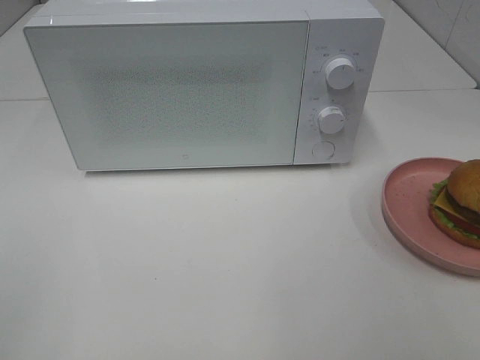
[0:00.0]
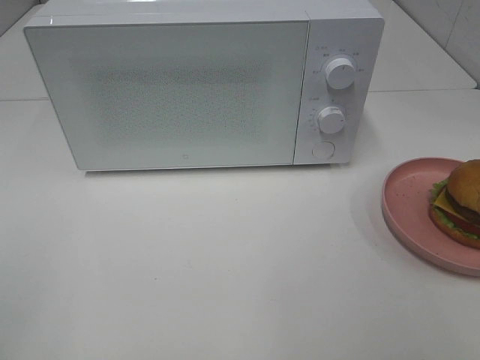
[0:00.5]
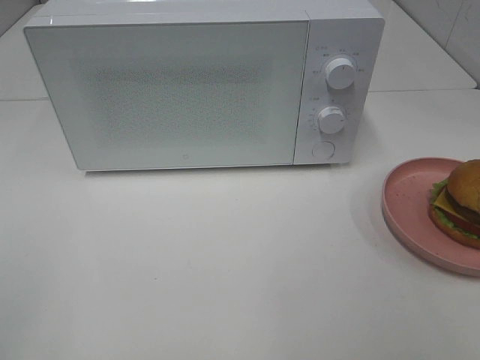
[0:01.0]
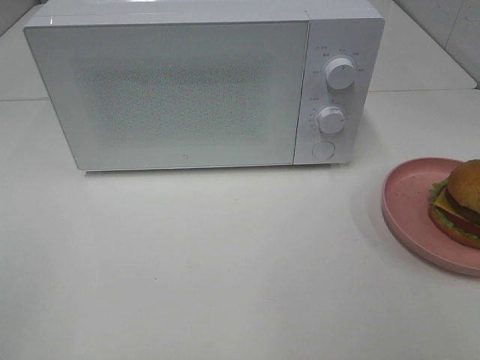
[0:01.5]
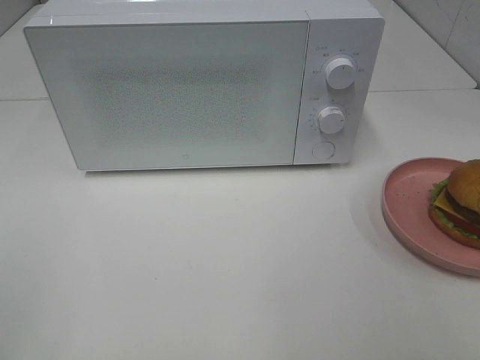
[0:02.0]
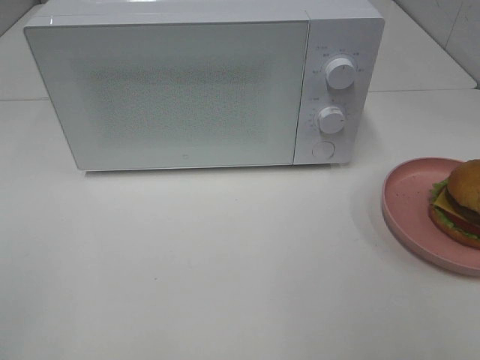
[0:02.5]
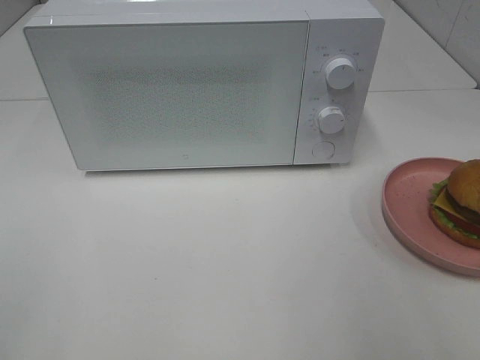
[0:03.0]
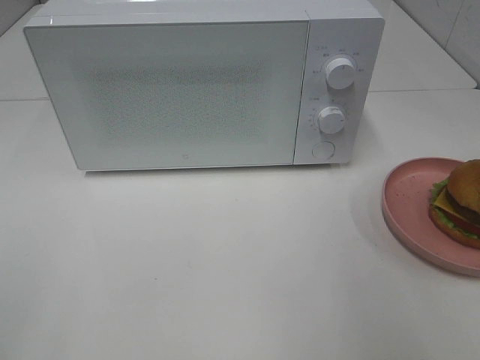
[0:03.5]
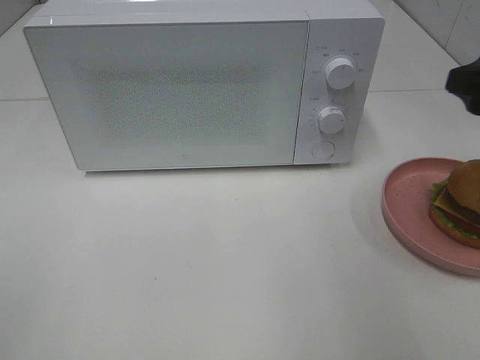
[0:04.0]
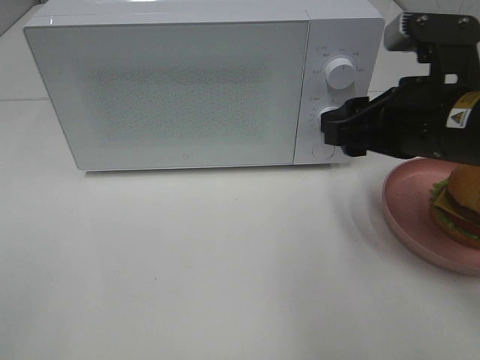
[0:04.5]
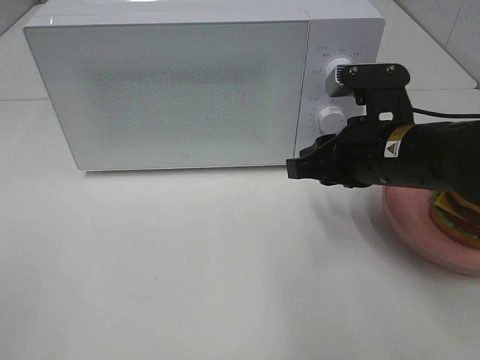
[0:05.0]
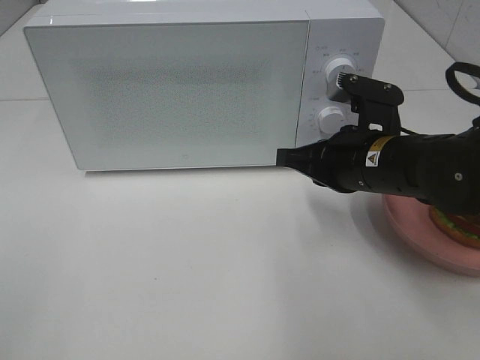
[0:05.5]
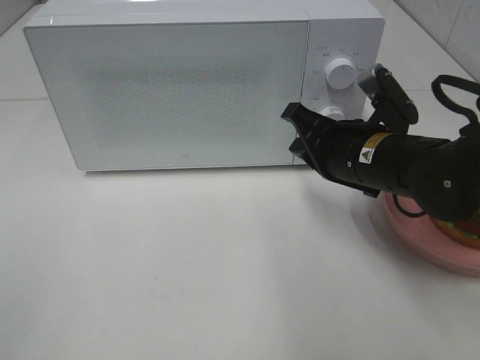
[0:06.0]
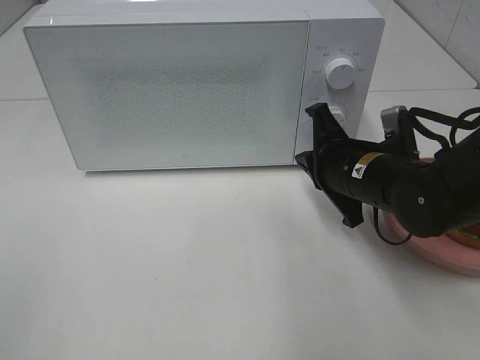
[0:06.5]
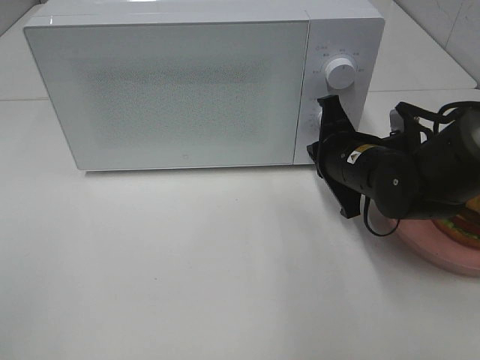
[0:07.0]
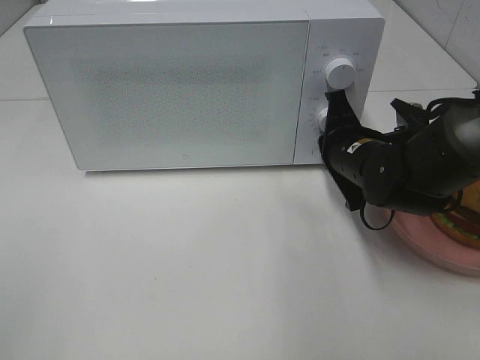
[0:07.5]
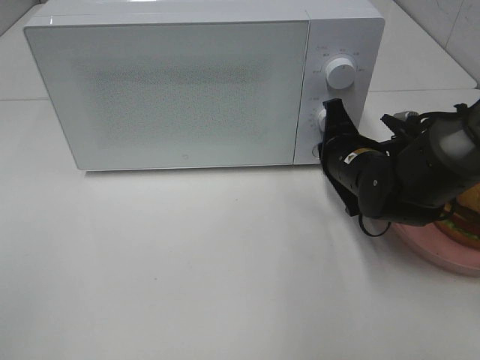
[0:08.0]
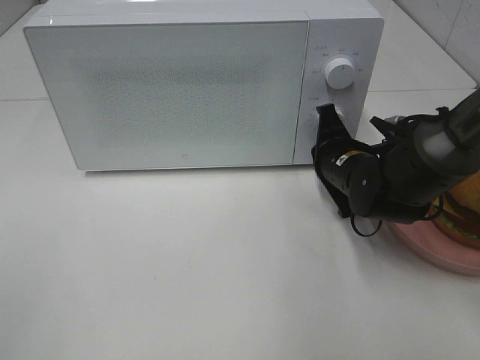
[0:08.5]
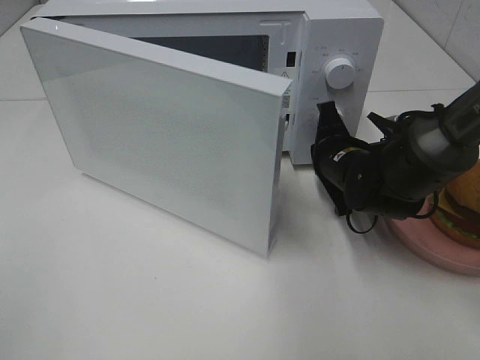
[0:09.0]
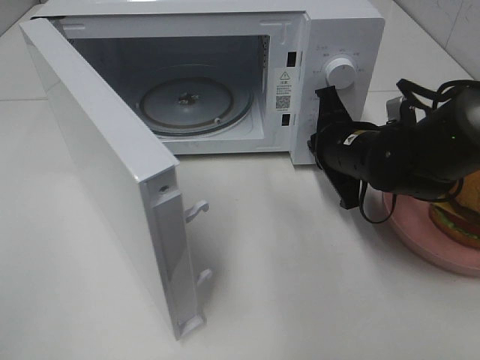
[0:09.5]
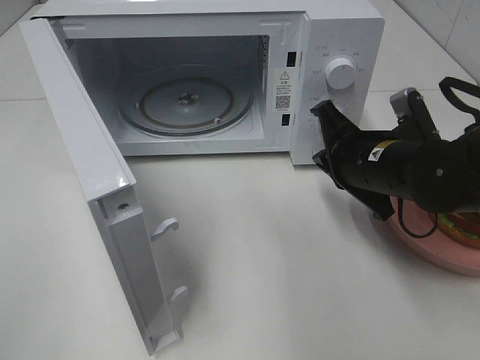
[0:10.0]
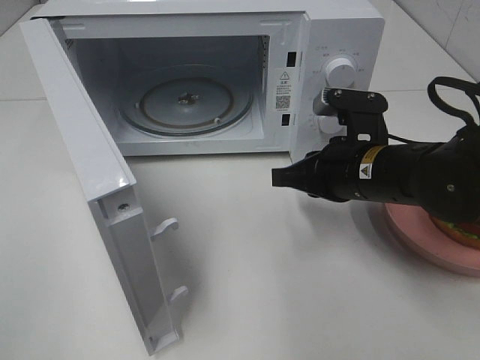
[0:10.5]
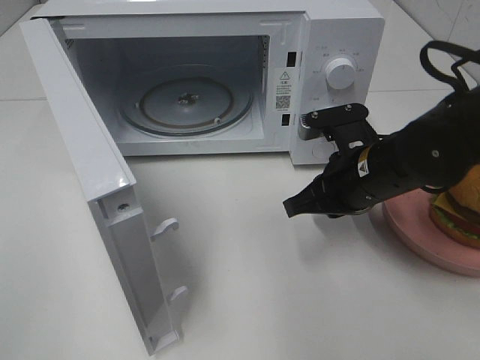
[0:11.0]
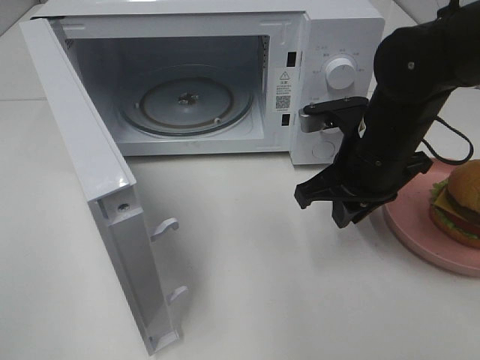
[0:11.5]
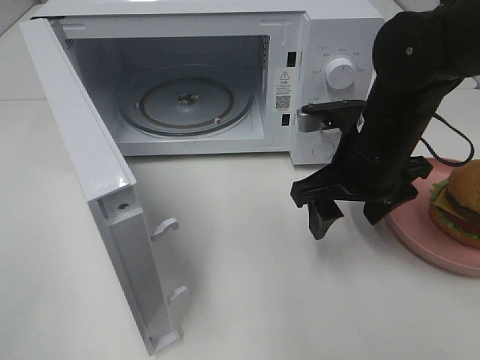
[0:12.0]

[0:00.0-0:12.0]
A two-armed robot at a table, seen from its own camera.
Task of the whole recording: Heat the burger.
Step, 0:00.0 to 0:09.5: Right hand: press the switch.
0:00.0 to 0:02.0: Both grippers stay about where they are.
0:02.0 to 0:04.0: The right gripper is displaced forward by some 25 cm.
0:04.0 to 0:06.0: The right gripper heads to the left, downward and forward, covering roughly 20 cm, and closes up.
0:06.0 to 0:08.0: The right gripper is displaced downward by some 5 cm.
0:08.0 to 0:10.0: The right gripper moves approximately 5 cm.
0:10.0 to 0:12.0: The right gripper opens up.

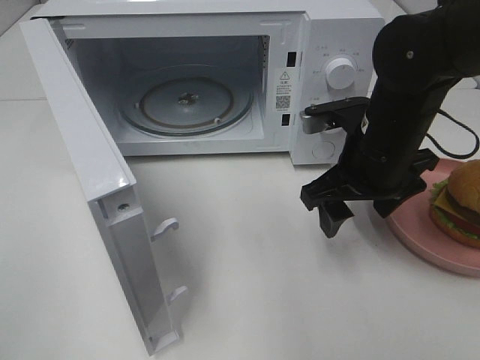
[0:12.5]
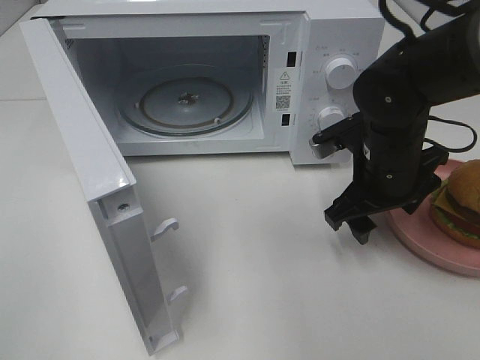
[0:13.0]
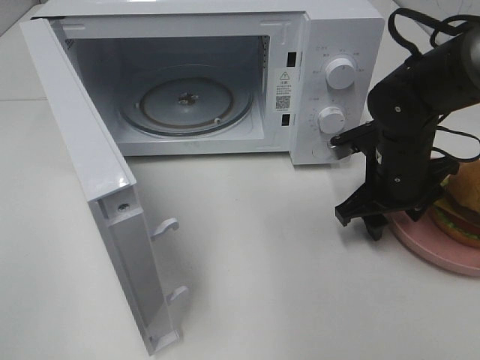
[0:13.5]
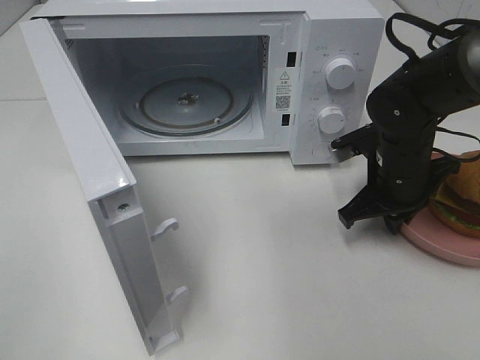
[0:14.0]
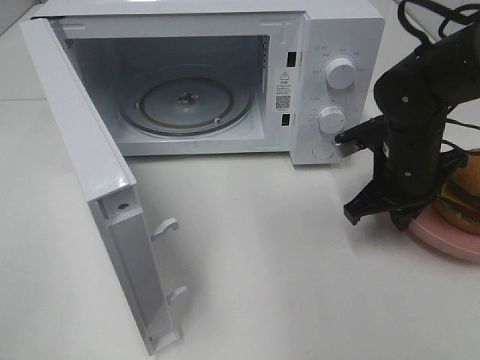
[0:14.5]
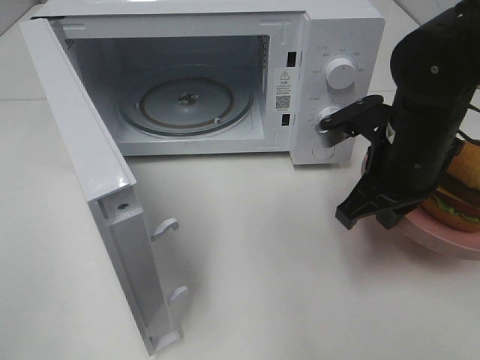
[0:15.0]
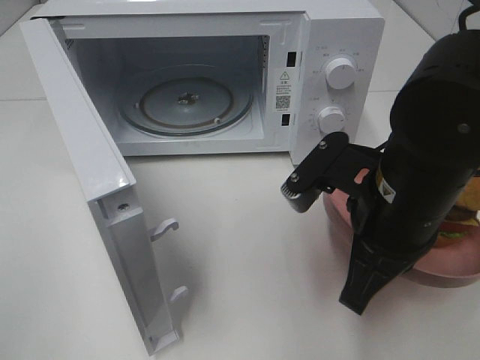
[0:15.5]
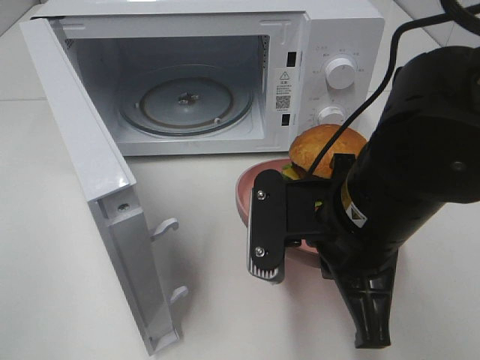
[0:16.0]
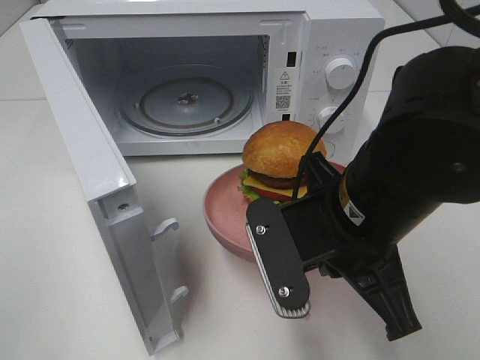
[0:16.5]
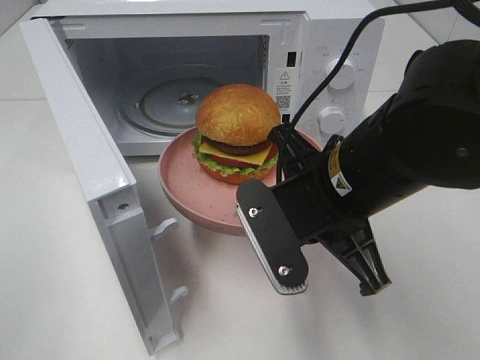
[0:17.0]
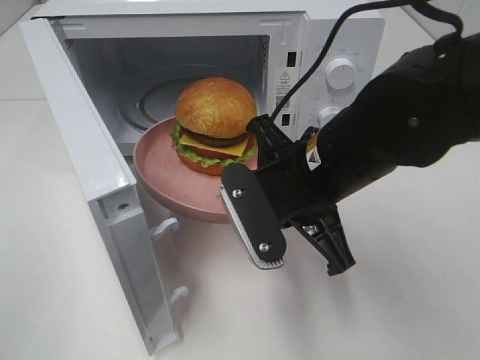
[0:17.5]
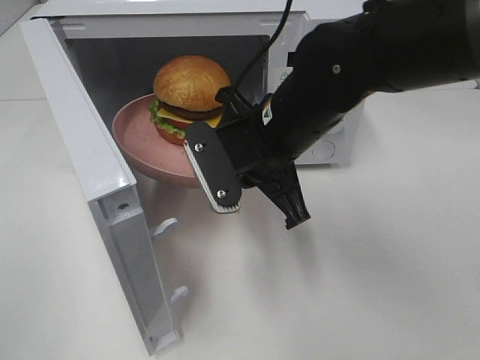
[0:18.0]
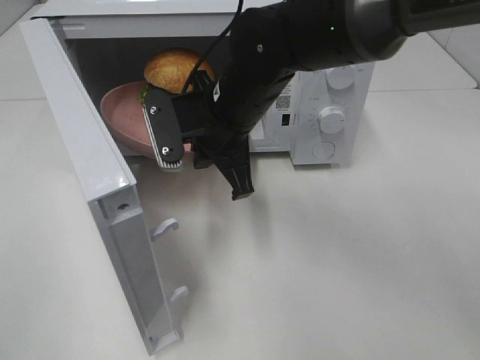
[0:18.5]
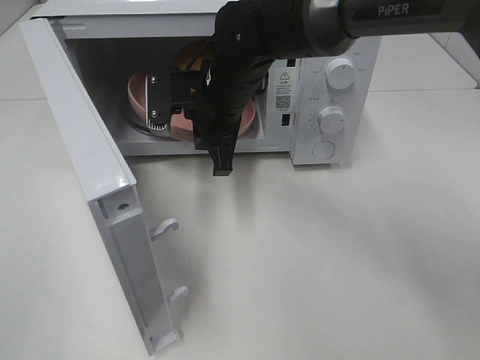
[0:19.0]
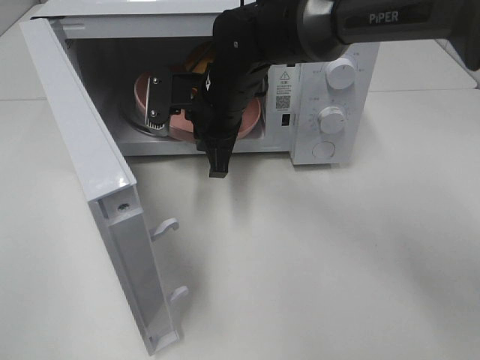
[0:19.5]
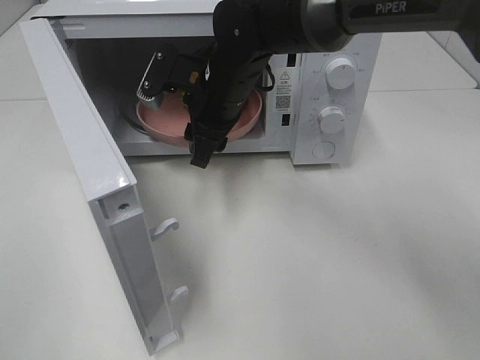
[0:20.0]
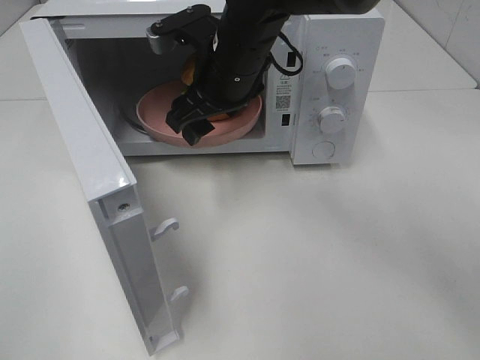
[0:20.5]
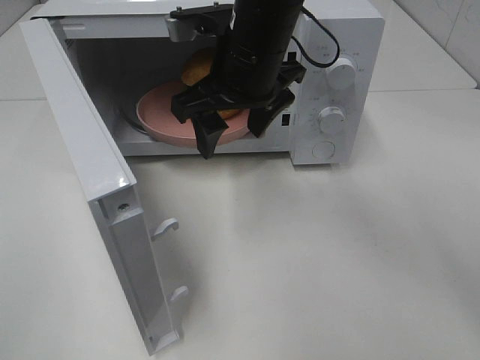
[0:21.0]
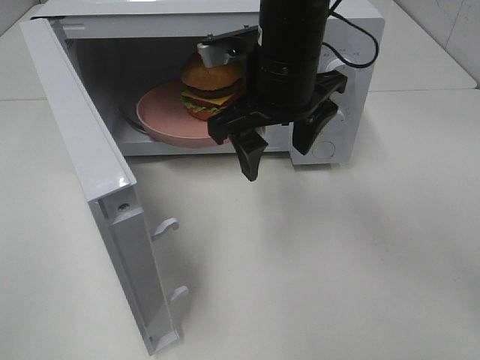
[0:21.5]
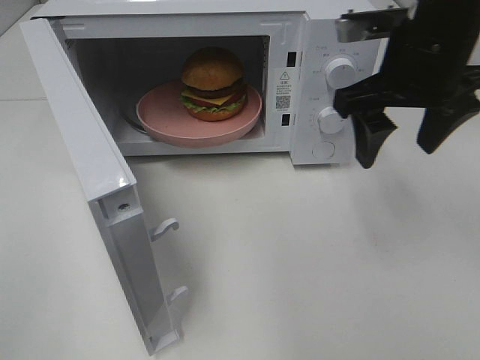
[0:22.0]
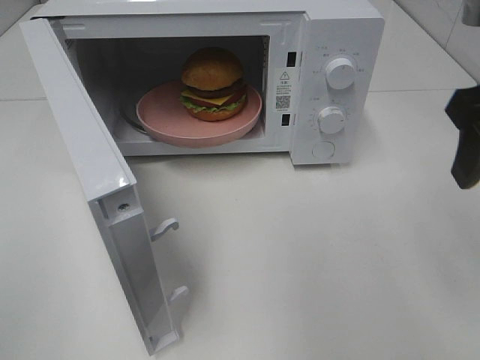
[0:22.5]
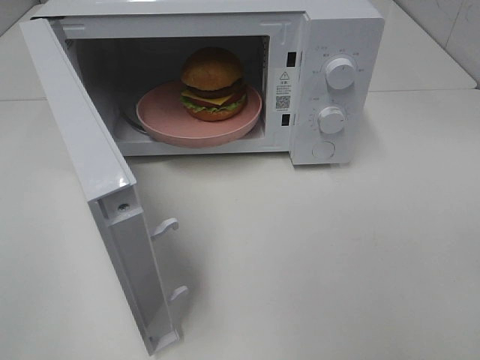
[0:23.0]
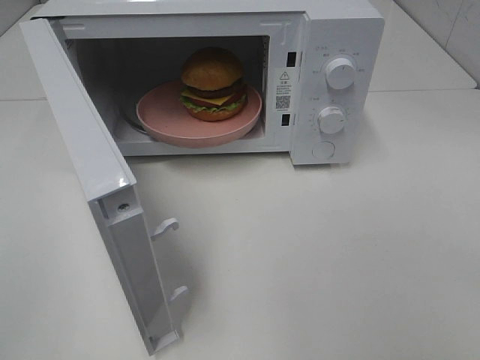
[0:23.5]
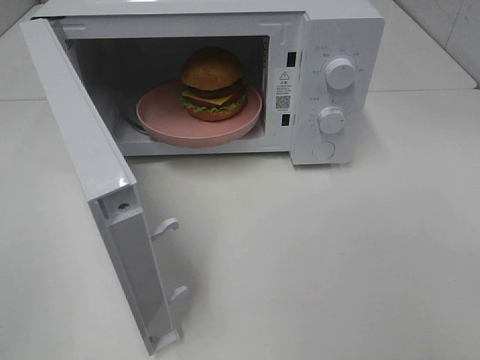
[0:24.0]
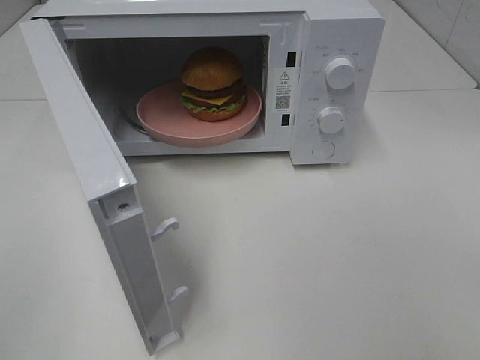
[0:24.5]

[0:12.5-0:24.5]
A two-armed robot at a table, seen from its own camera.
Task of the whole recording: Heat the burger.
Step, 0:14.5 to 0:19.5: Right hand: place the plate in the microwave.
0:12.5 to 0:14.5: The right gripper moves some 5 cm, and closes.
0:14.5 to 0:16.5: The right gripper travels backward, to the left and upward by approximately 20 cm.
0:16.5 to 0:18.5: The right gripper heads forward and to the left, covering approximately 20 cm.
0:18.5 to 0:20.5: The right gripper shifts by approximately 5 cm, and opens up.
0:20.5 to 0:22.5: The right gripper is displaced to the right and backward by roughly 30 cm.
0:22.5 to 0:24.5: The right gripper goes approximately 20 cm backward.

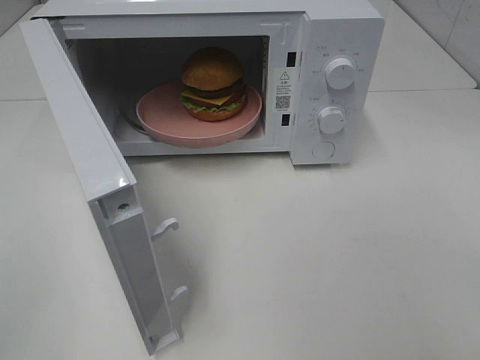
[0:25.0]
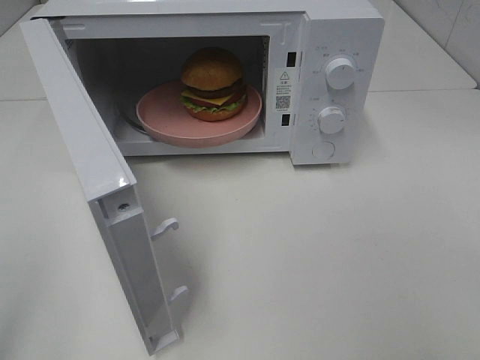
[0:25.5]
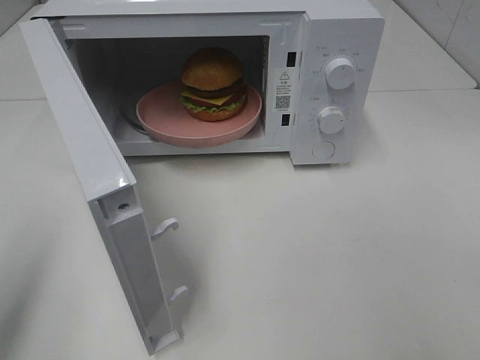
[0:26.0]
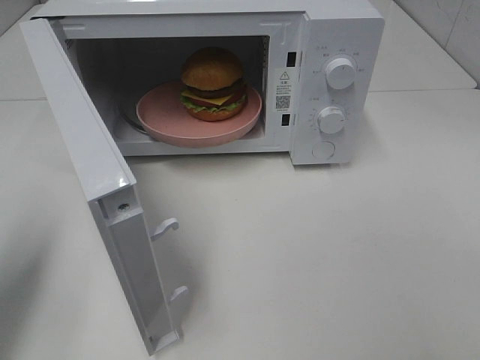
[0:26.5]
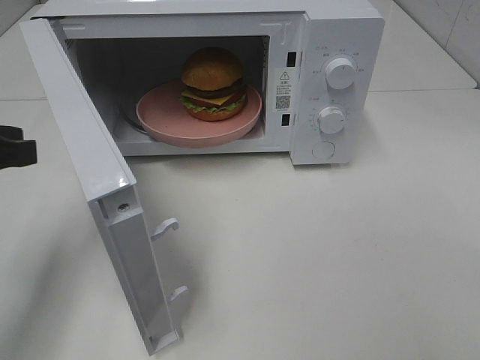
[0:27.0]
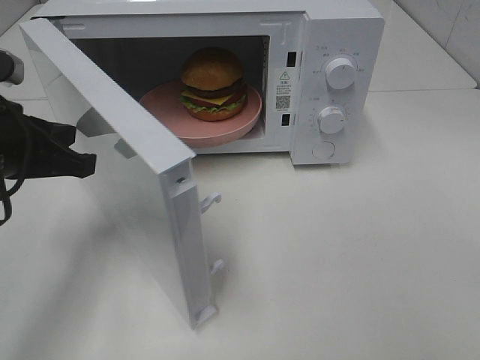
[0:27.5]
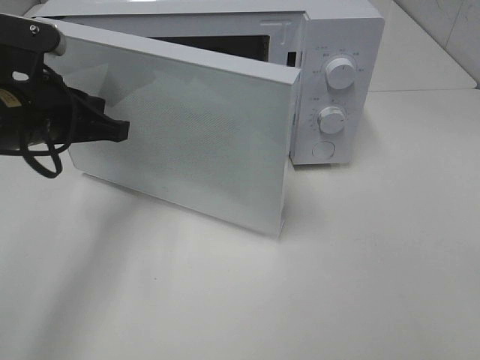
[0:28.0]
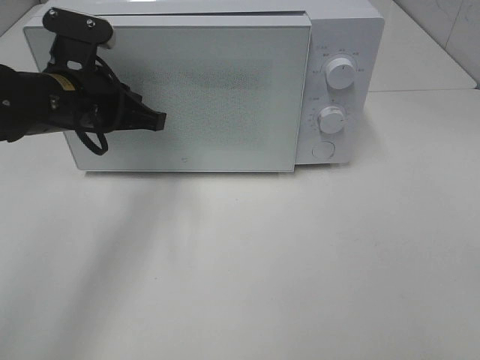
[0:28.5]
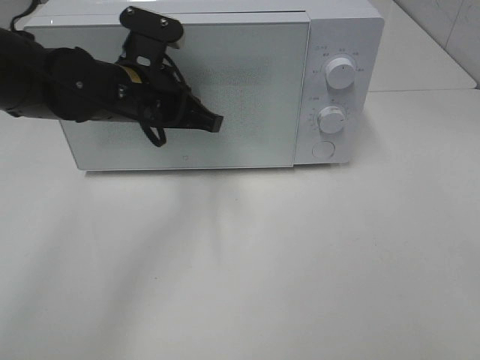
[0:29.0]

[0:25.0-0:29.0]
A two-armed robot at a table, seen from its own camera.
Task of the whole recording: Heat the burger.
0:25.0 to 0:27.0: The left gripper moves forward, some 20 cm.
0:27.0 to 0:29.0: The left gripper travels to the right and forward by approximately 20 cm, and opens its fingers.
